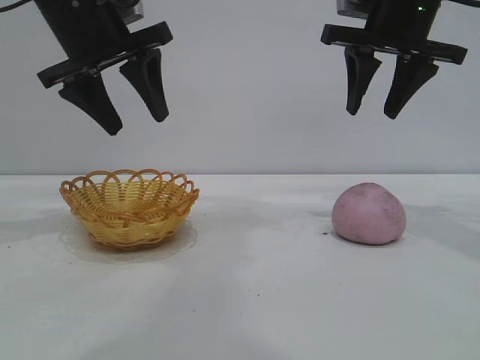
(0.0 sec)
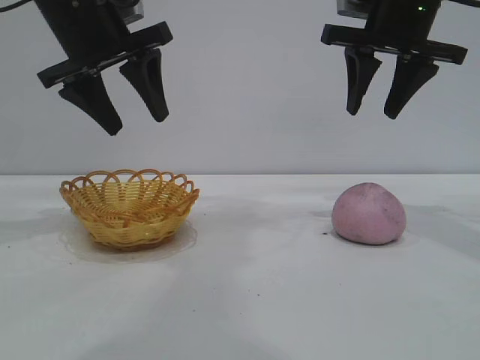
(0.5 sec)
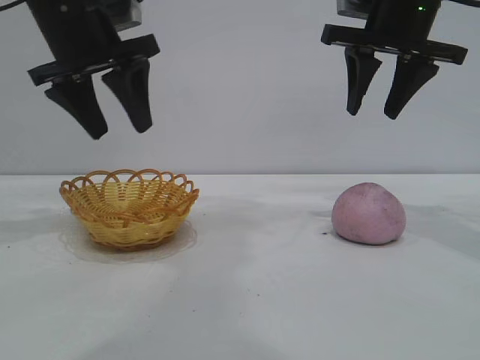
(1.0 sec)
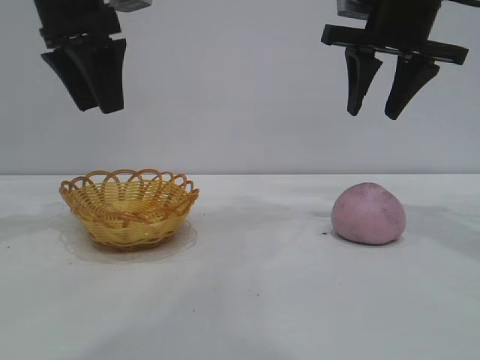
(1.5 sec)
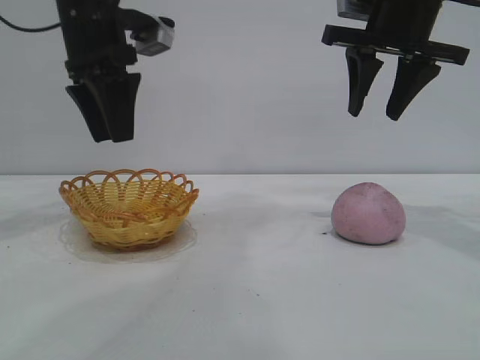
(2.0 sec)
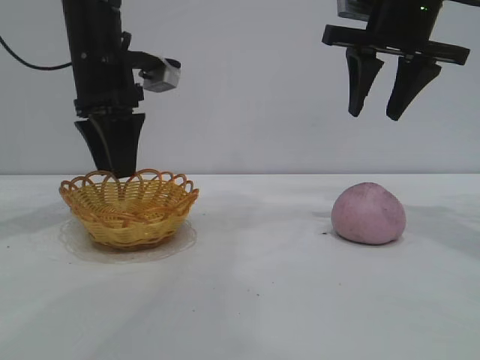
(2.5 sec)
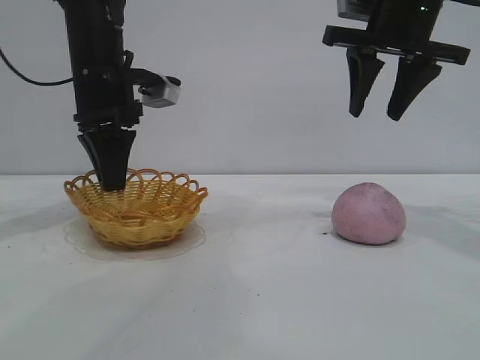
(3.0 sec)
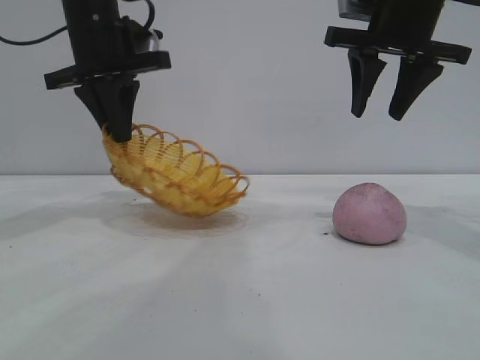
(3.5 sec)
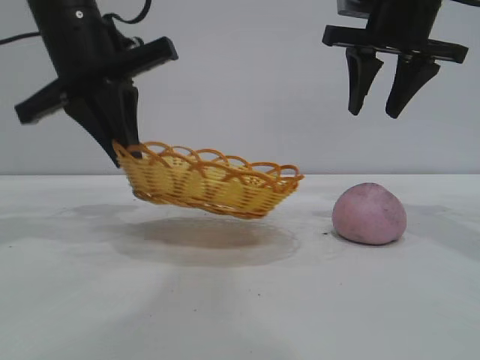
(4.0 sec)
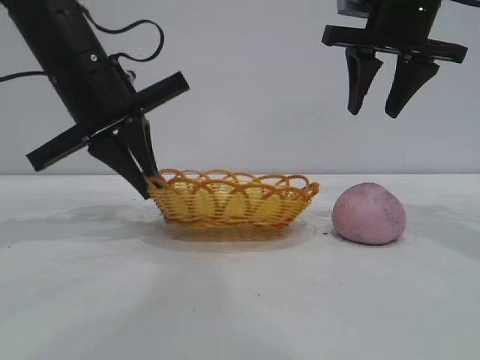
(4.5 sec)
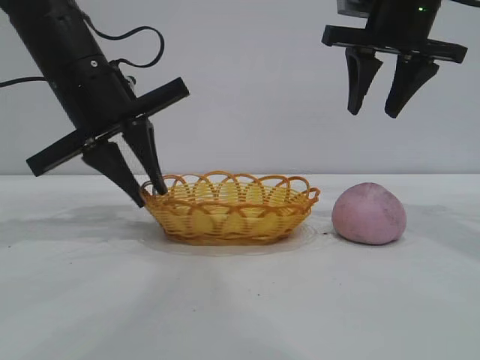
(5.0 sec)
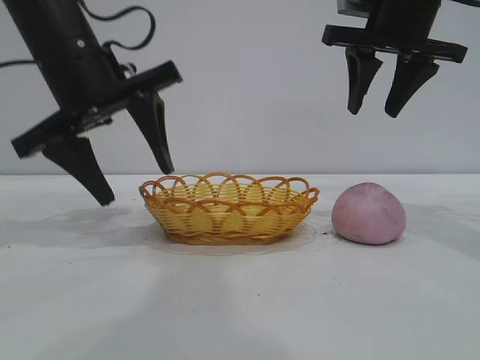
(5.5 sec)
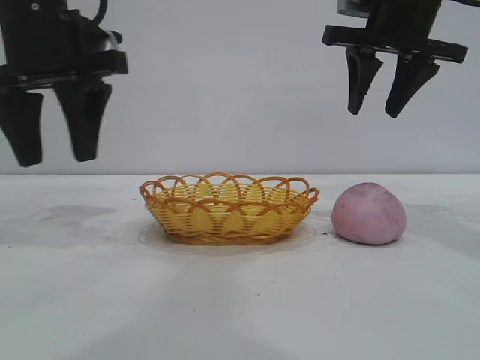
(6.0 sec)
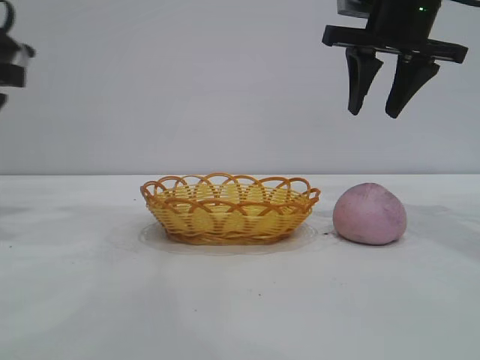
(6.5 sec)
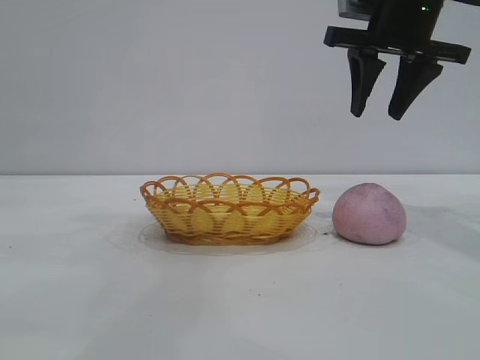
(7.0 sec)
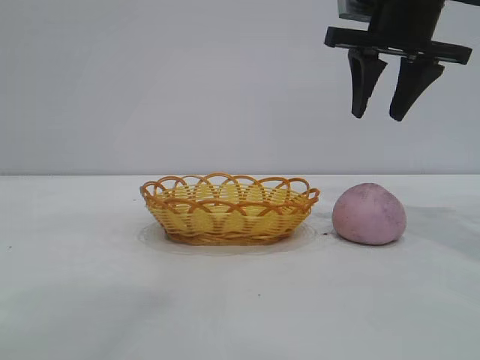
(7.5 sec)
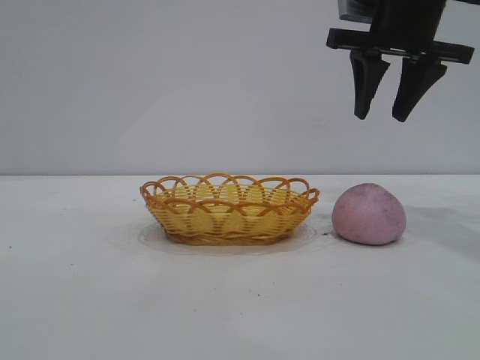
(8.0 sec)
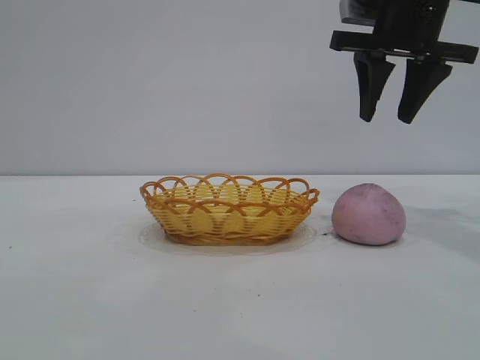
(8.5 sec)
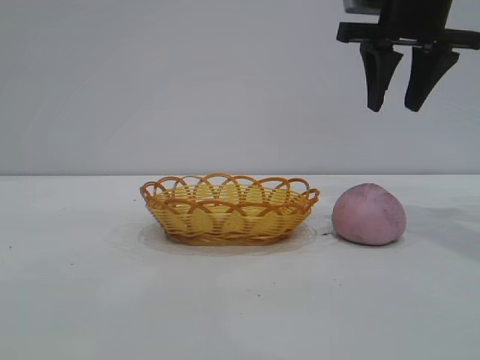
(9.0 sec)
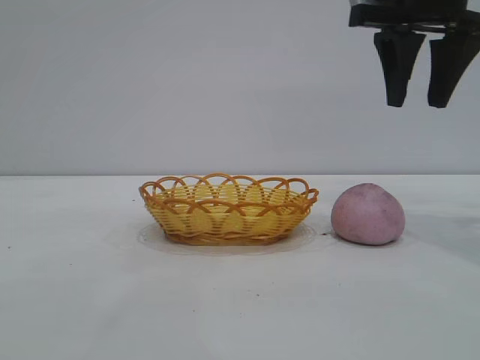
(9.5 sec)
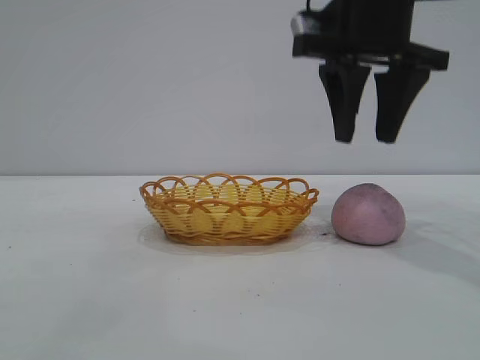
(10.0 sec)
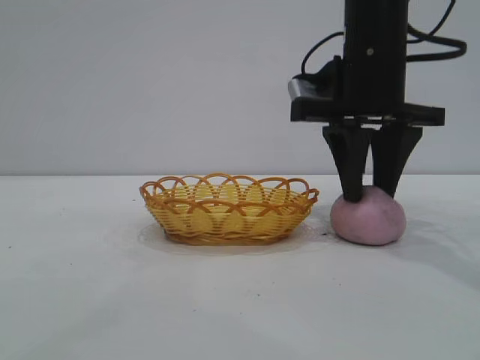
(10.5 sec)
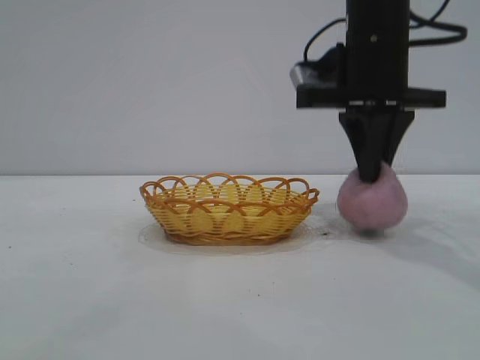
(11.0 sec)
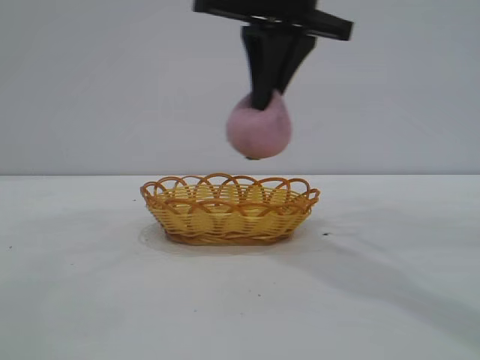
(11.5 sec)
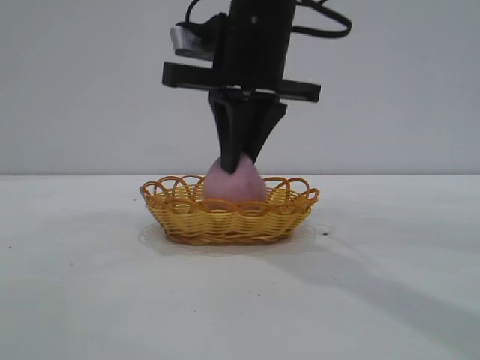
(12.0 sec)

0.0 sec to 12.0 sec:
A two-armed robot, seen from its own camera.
Task of the whole recording: pick up the peach and put it into the basket.
Step, 0.0 sec to 5.5 sec: Move the basket to the center of view.
Step, 6.0 sec to 11.0 sec: Pick up the peach.
